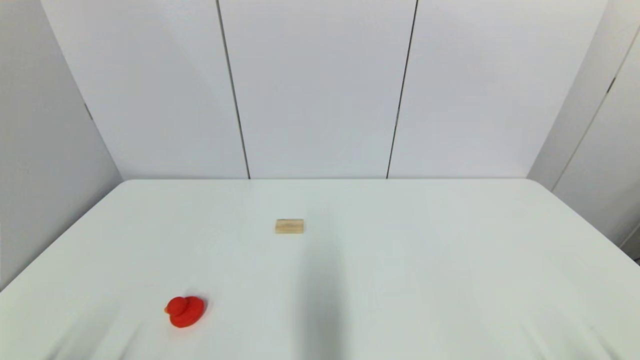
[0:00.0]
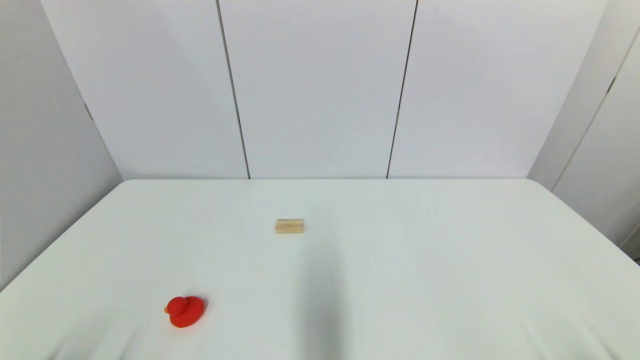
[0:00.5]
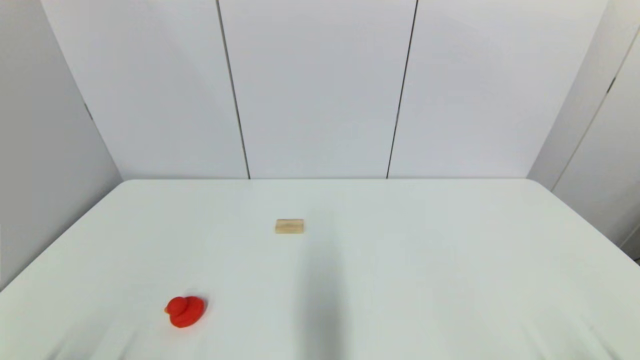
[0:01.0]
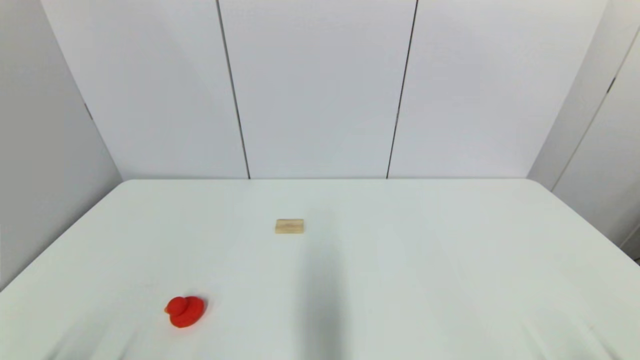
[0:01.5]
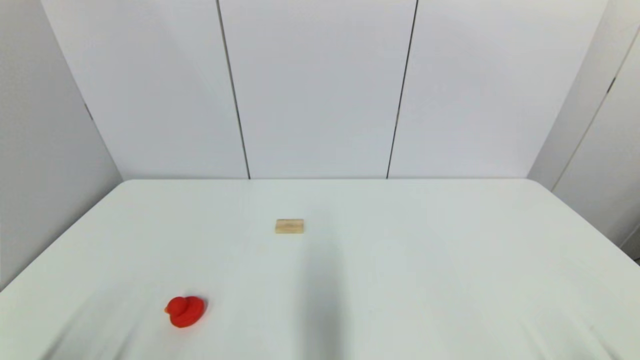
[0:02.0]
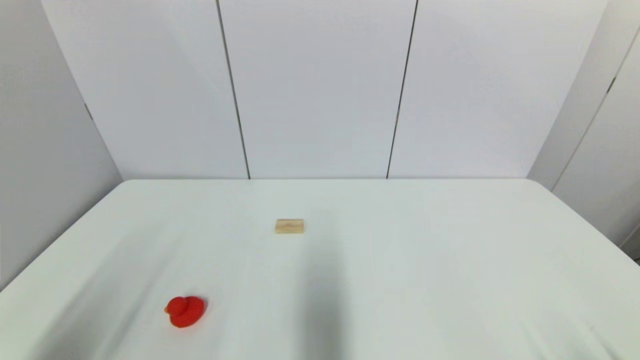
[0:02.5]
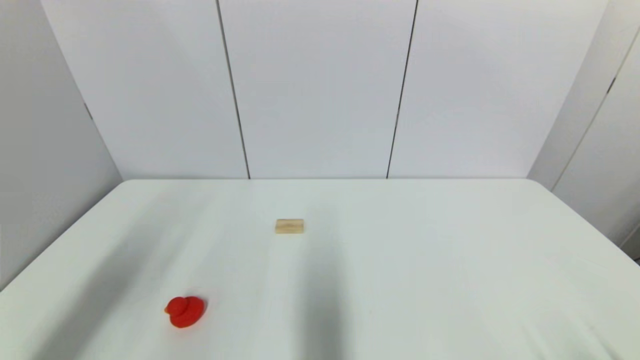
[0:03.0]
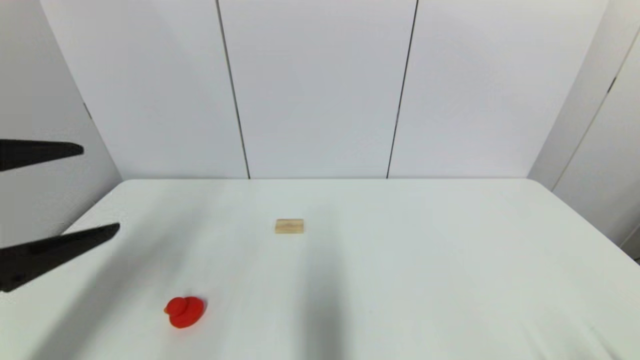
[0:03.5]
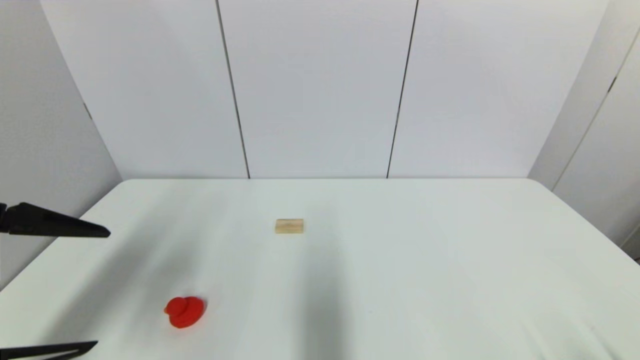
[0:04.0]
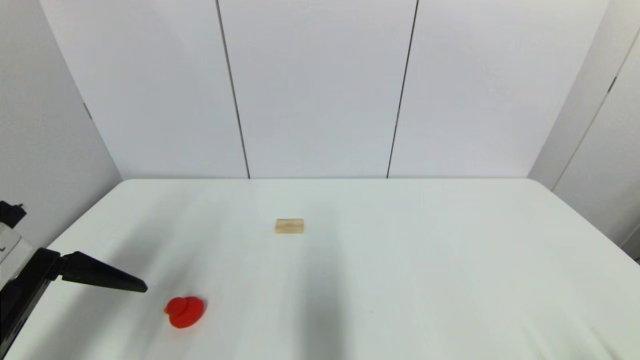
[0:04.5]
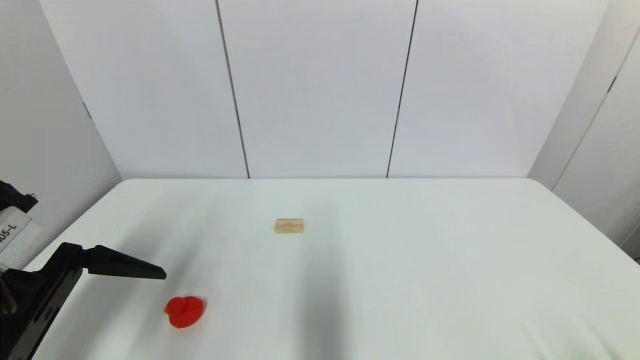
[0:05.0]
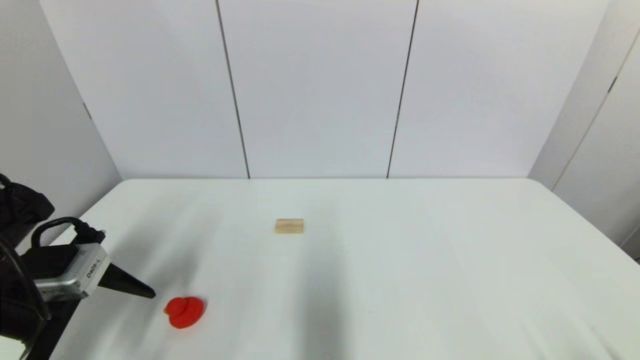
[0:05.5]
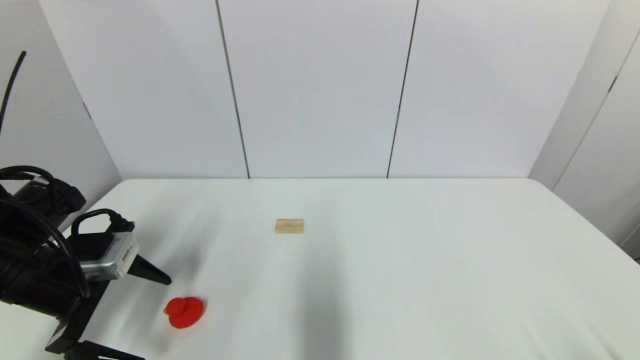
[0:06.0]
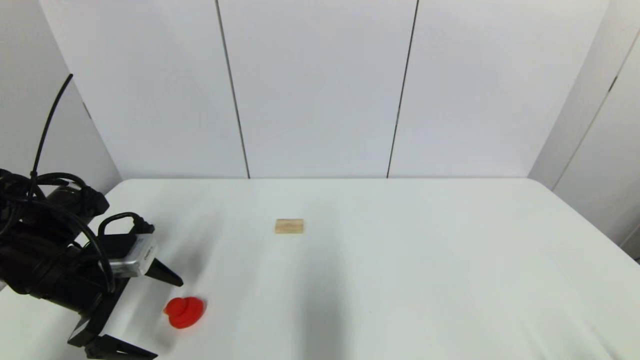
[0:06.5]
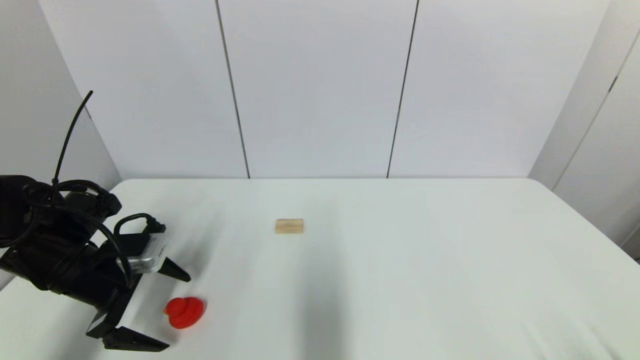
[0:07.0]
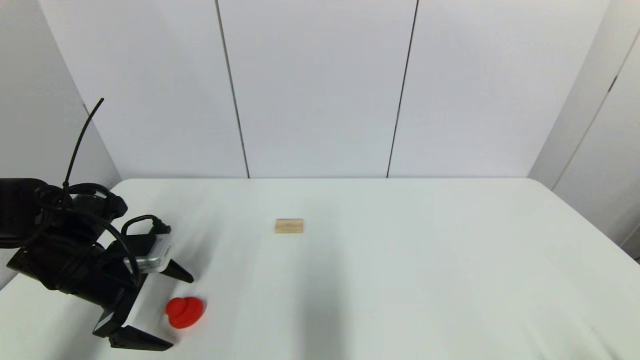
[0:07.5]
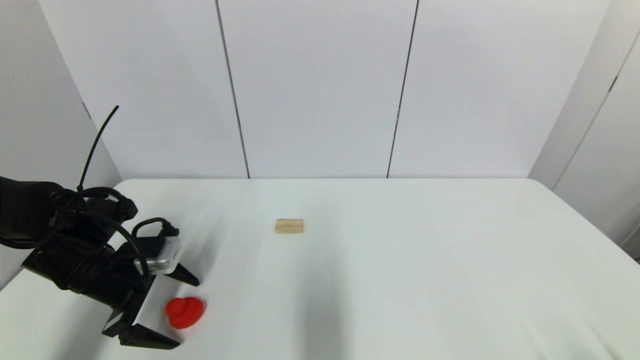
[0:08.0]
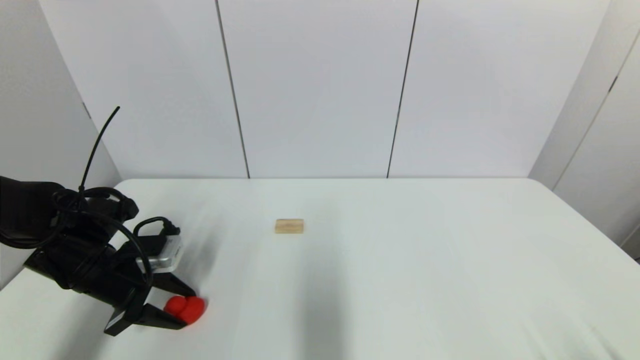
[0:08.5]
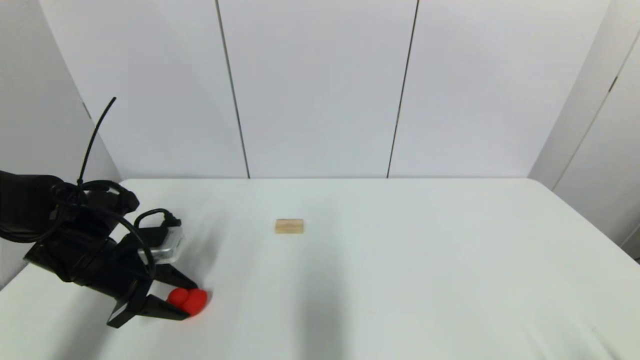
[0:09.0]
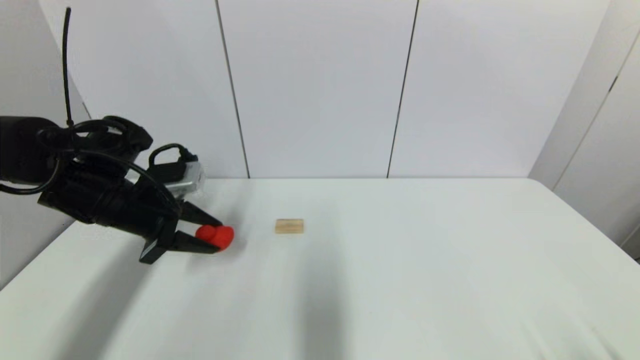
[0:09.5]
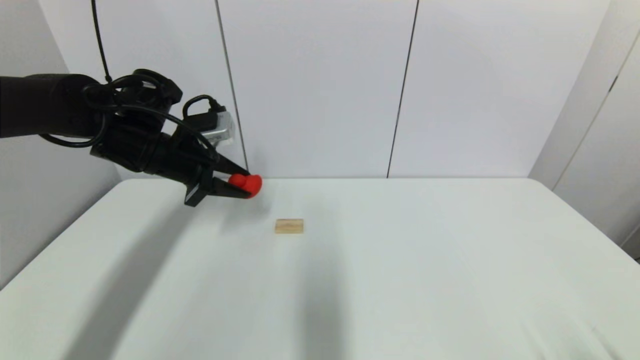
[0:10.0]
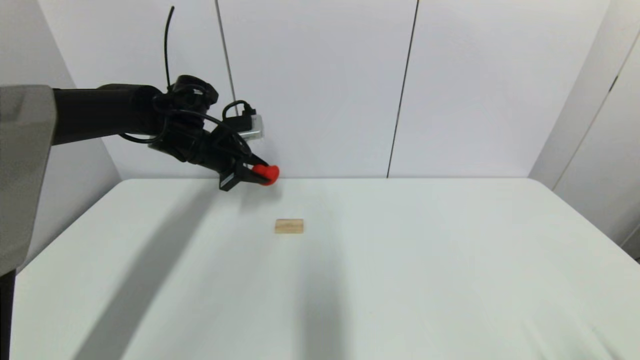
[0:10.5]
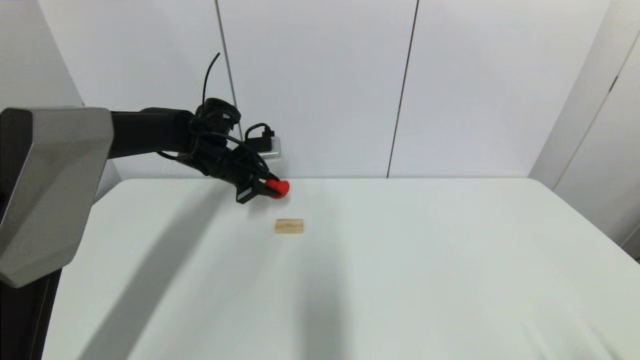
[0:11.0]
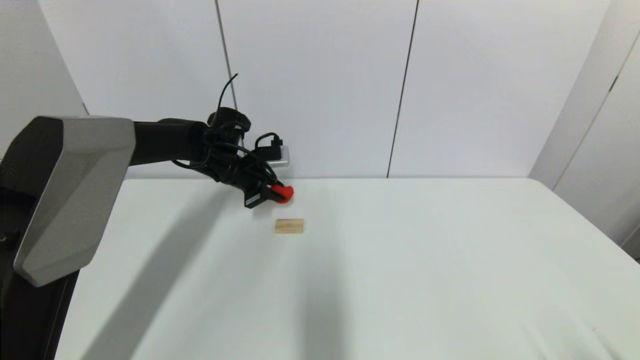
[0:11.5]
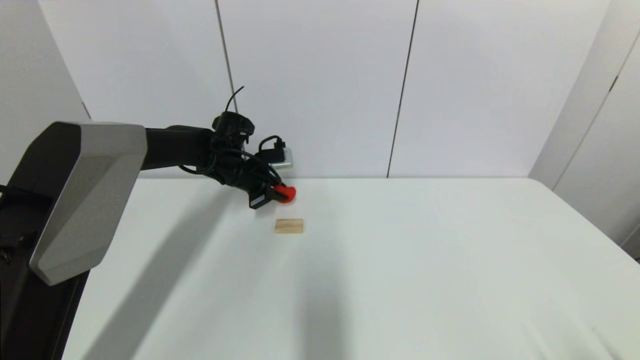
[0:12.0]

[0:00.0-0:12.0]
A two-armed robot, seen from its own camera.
Step, 0:03.5 to 0:09.0: Grasp the red duck with left gripper.
0:02.0 to 0:04.0: The left gripper is displaced upward and forward by some 20 cm.
0:04.0 to 0:06.0: The left gripper goes roughly 15 cm downward and forward.
0:06.0 to 0:08.0: The left gripper travels downward by about 5 cm.
0:08.0 to 0:10.0: The left gripper travels upward, forward and to the right by approximately 15 cm, and closes.
0:10.0 to 0:12.0: The left gripper shifts some 15 cm forward, downward and to the right.

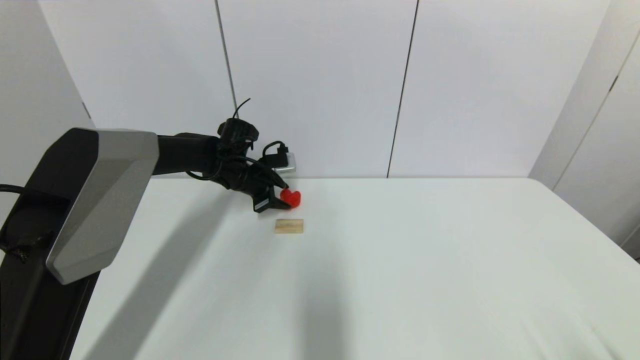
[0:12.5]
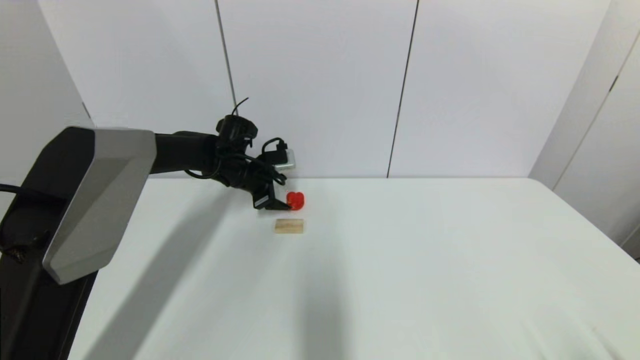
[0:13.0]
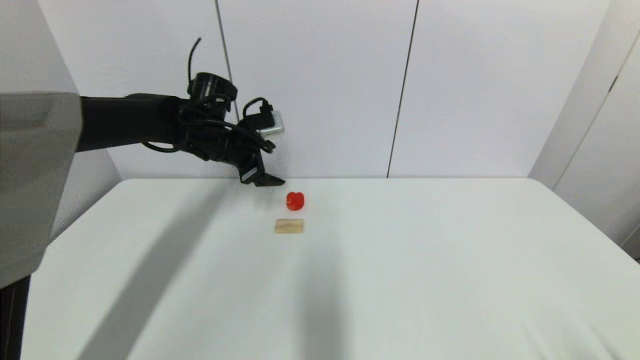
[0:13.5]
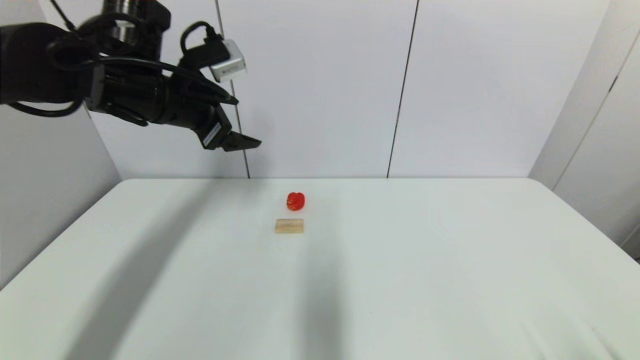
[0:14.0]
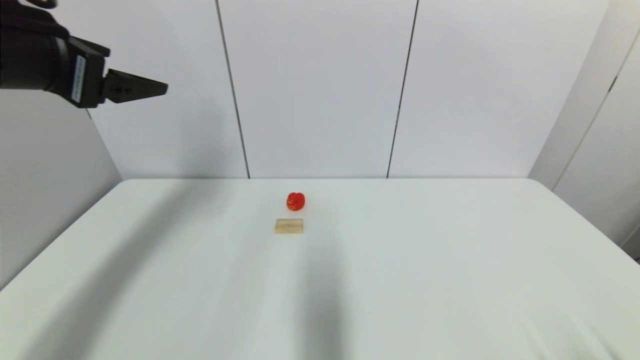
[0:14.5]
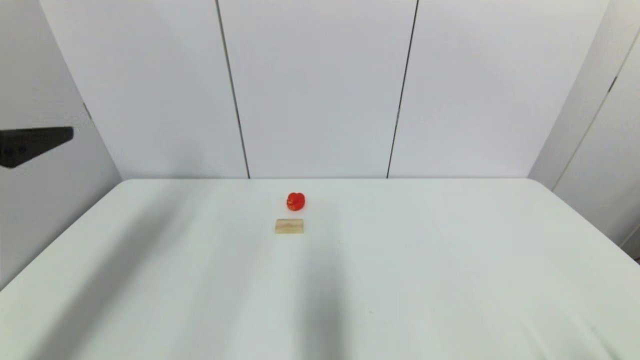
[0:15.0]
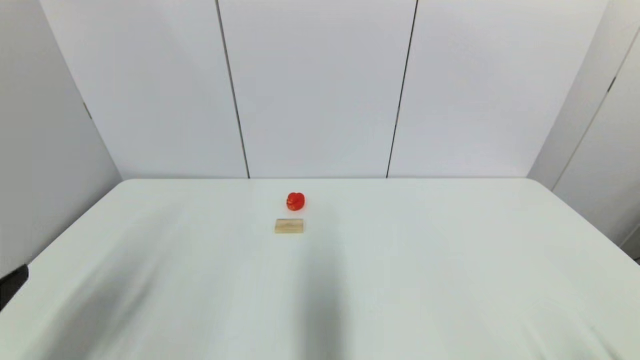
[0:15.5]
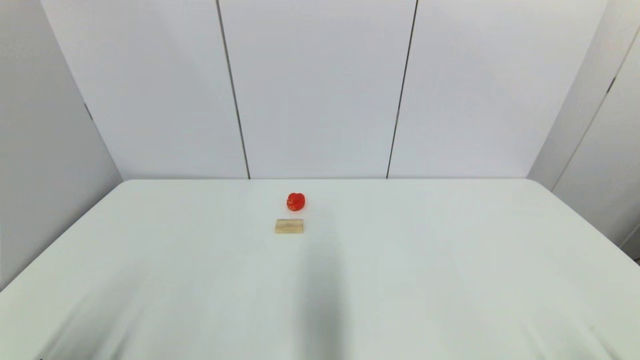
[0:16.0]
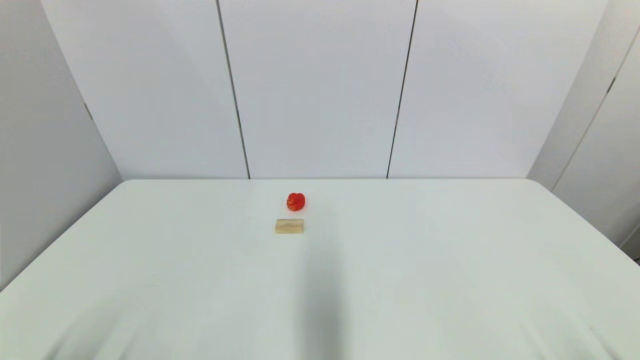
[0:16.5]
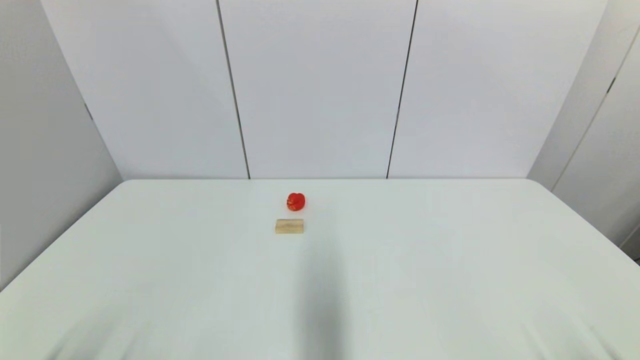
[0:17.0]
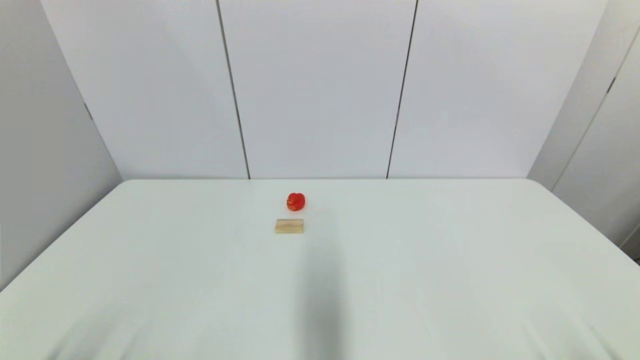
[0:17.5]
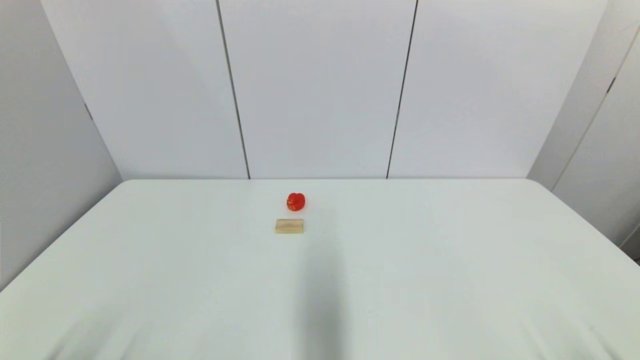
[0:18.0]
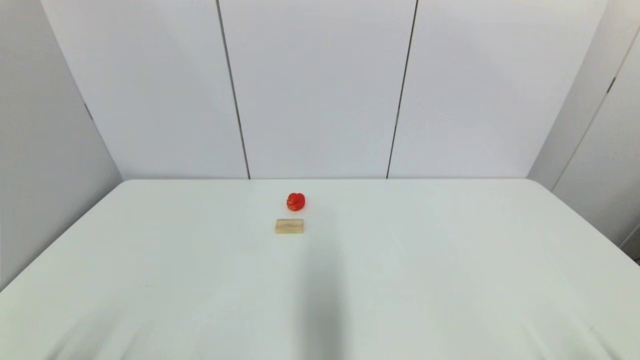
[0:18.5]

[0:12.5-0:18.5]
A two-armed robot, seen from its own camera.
0:12.5 to 0:14.5: The left gripper shifts about 35 cm upward, backward and to the left, and opens its fingers.
0:14.5 to 0:16.5: The left gripper moves downward and backward, roughly 40 cm.
0:16.5 to 0:18.5: The two grippers keep their place.
